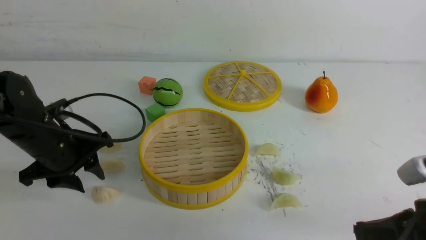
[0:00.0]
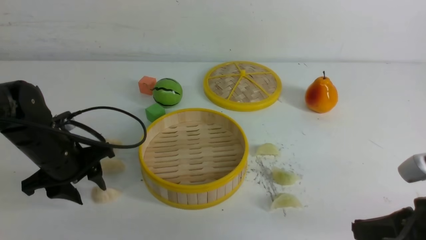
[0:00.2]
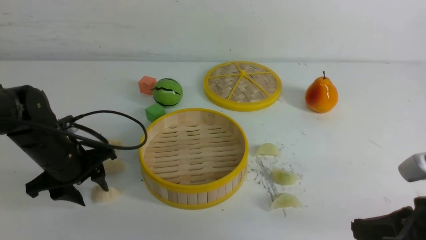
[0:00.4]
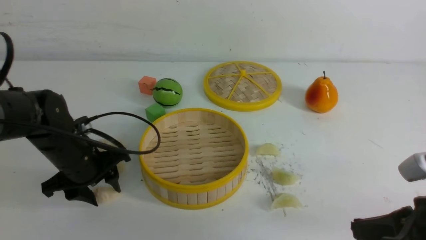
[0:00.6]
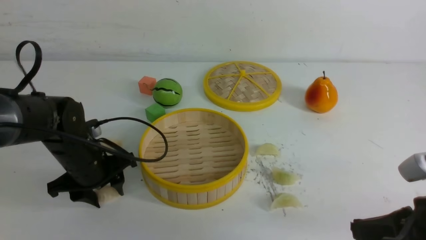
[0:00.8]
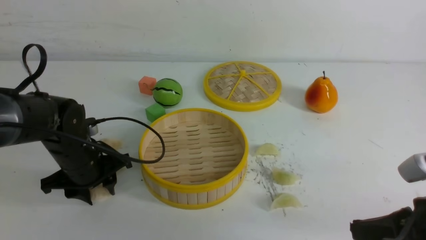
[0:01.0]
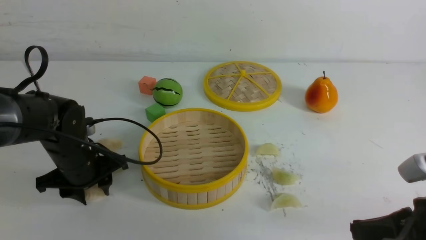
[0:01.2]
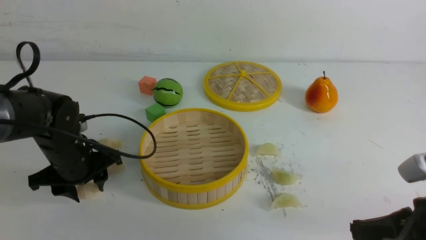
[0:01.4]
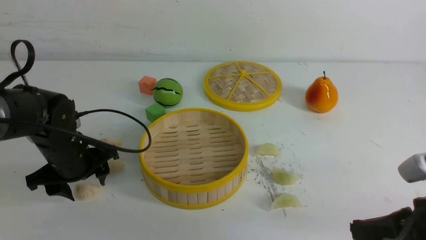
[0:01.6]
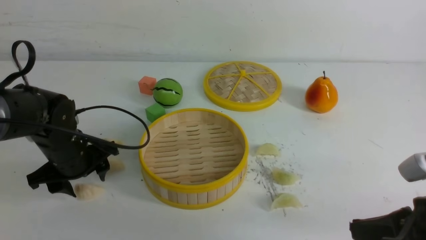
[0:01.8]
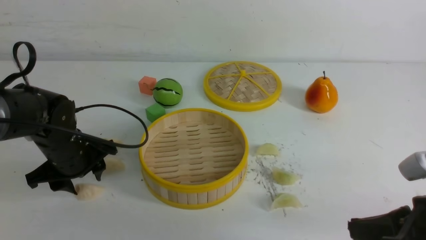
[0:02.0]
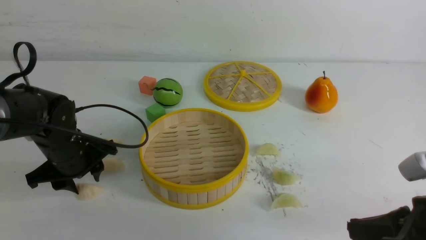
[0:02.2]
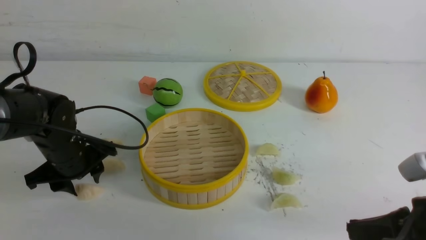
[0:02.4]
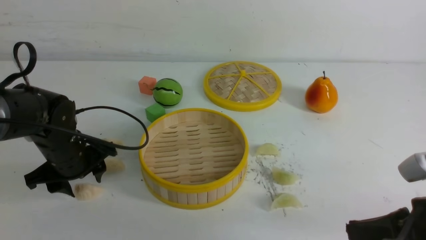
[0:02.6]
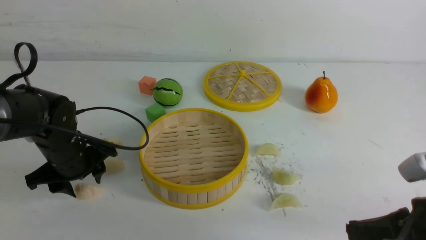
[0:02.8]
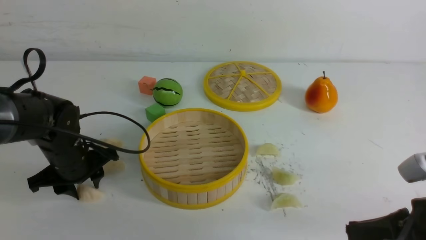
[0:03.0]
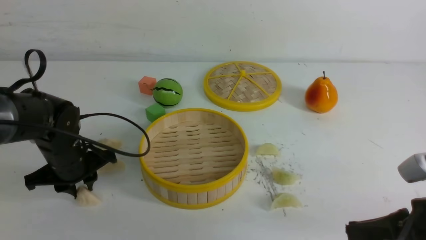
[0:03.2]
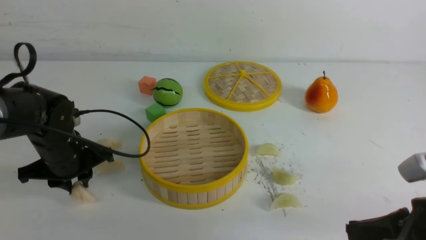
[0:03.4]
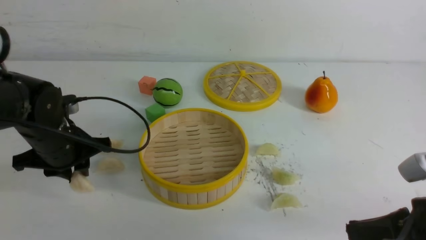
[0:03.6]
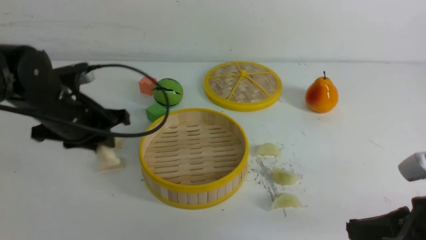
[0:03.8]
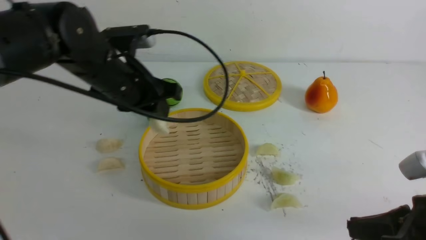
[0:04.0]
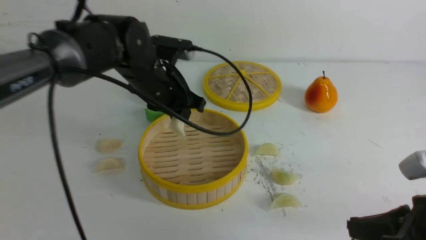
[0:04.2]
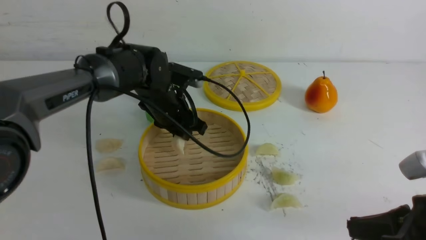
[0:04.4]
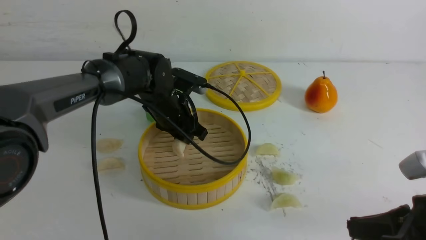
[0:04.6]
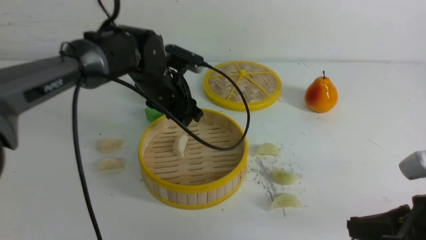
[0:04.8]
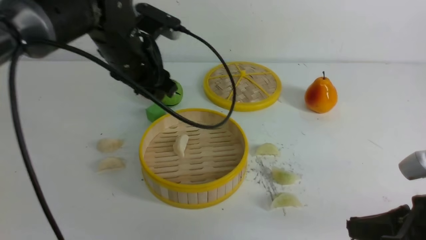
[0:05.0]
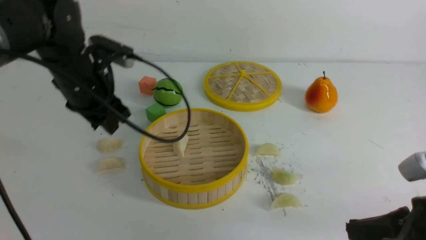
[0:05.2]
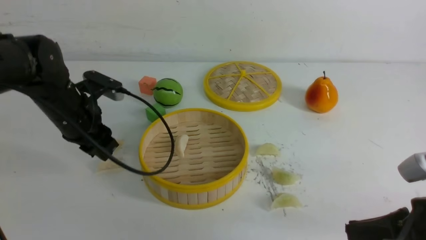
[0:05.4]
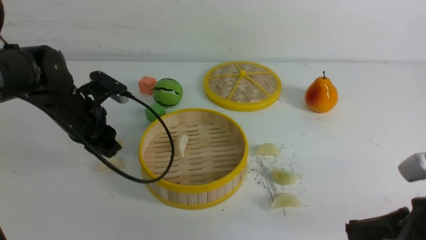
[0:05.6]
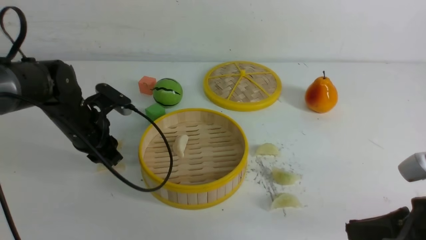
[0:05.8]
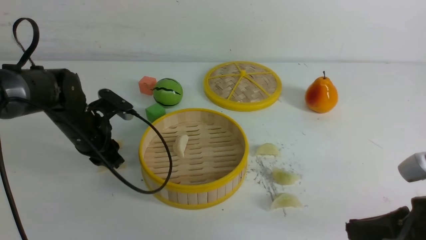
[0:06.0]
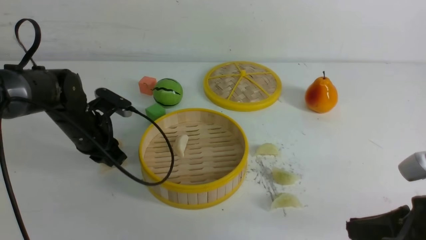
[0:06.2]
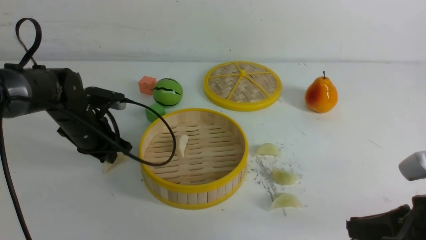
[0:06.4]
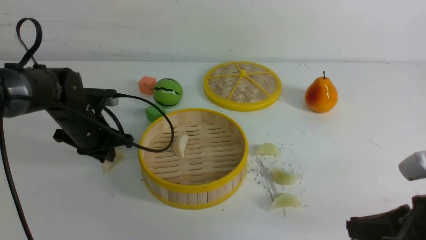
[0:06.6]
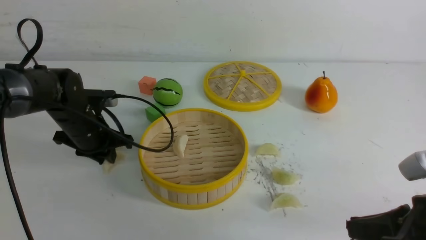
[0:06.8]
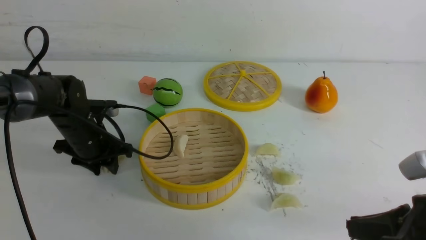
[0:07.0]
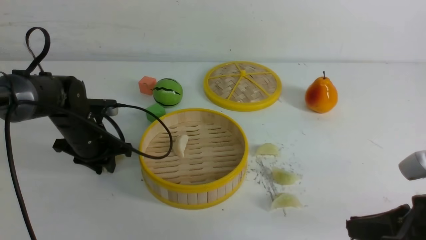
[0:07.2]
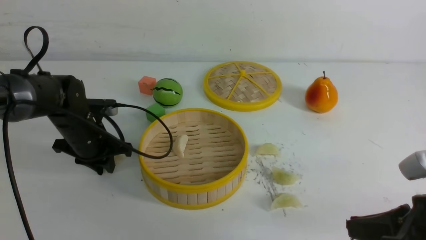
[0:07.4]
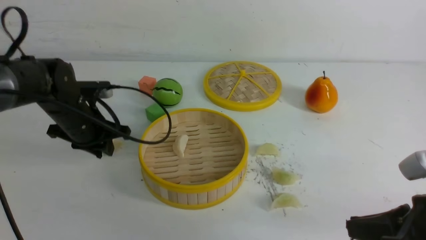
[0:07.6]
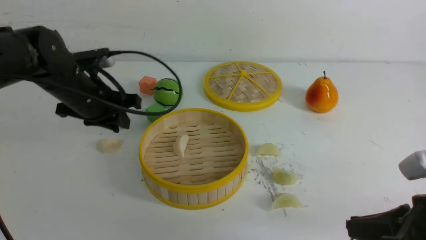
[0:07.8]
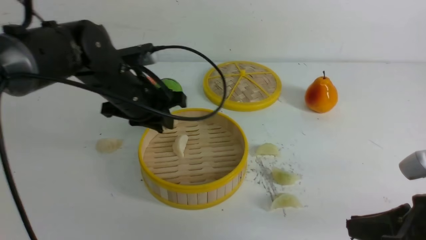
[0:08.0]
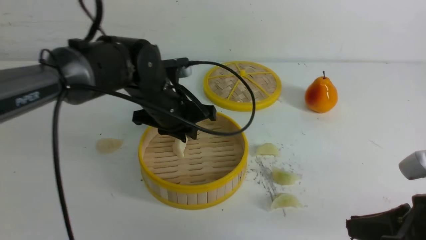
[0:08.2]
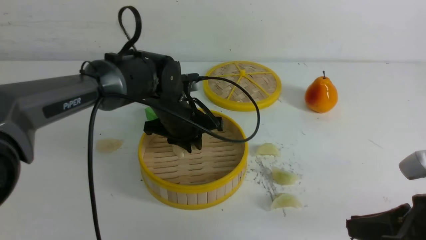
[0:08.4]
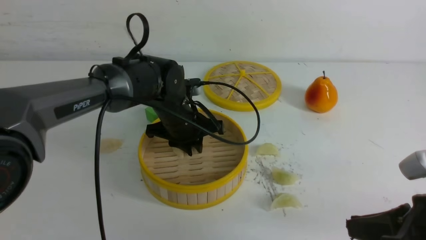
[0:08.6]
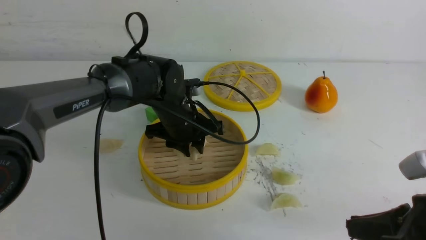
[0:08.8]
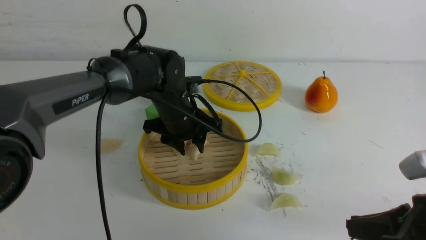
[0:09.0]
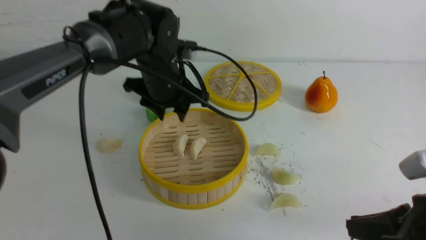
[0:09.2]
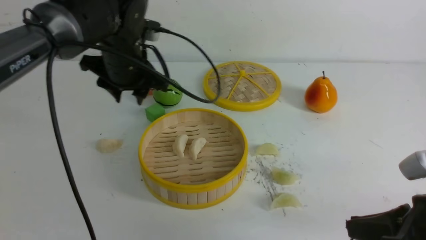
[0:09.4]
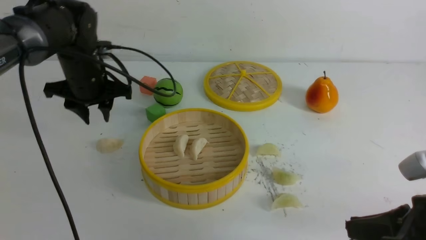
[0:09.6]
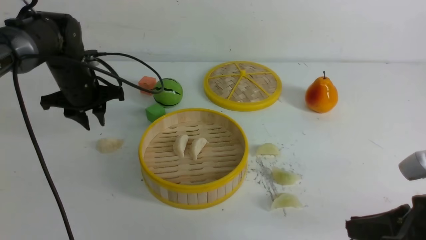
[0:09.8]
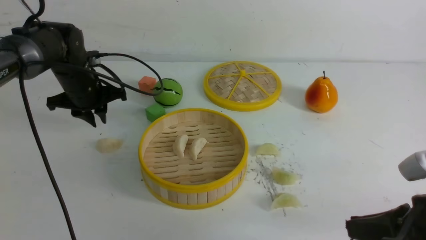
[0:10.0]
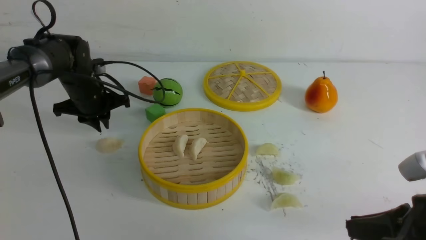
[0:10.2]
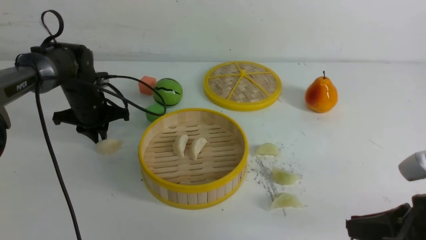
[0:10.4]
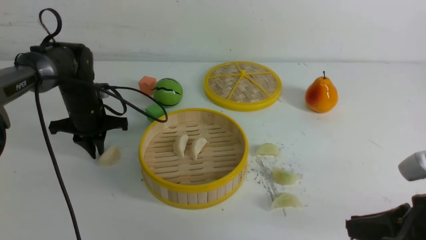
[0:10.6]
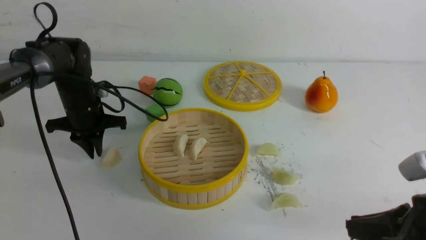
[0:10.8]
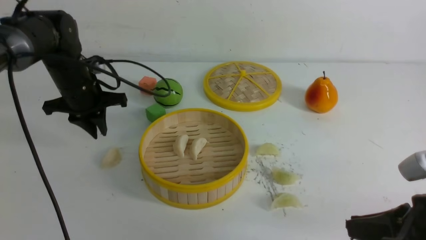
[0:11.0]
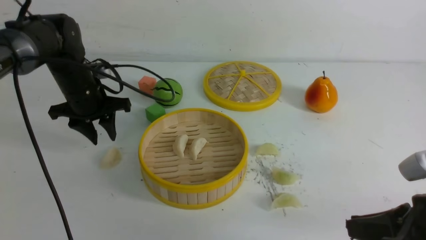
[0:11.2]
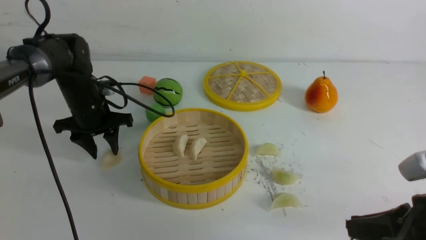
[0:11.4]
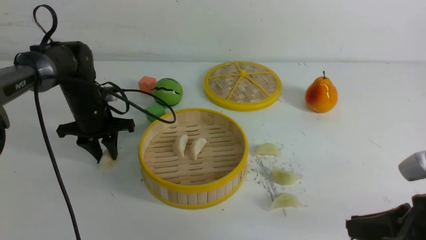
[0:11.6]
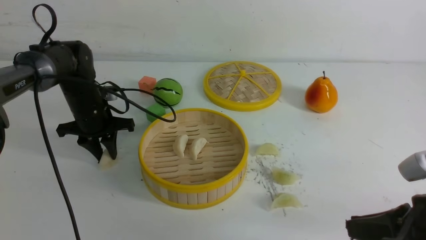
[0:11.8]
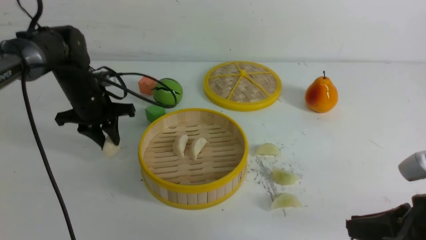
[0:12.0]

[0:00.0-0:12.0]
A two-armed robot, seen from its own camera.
Task of the whole recording: put the dumplings into the steamer on the white table.
Step, 0:00.0 to 0:03.4: use the left arm to grab a dumpling.
Step, 0:03.6 to 0:04.6: use the left arm to put the dumpling into the steamer.
Step, 0:04.8 to 0:07.4: use the left arm to grab a dumpling.
Step, 0:07.6 to 0:09.0: use the left arm to put the dumpling into the steamer.
Step, 0:09.2 to 0:11.8: use the left arm to grab a dumpling.
0:00.0 to 0:01.6: There are only small adjustments of the grippers.
0:01.6 to 0:03.0: Both grippers stay put.
0:03.0 to 0:04.4: The left gripper goes roughly 15 cm to the right and forward.
0:04.4 to 0:06.0: The left gripper is displaced to the left by roughly 15 cm.
0:07.6 to 0:09.0: The left gripper travels to the right by approximately 15 cm, and opens.
0:09.0 to 0:10.4: The left gripper heads to the left, covering approximately 15 cm, and closes up.
0:10.4 to 0:12.0: The left gripper swings up and down, approximately 5 cm each way, with 2 reversals.

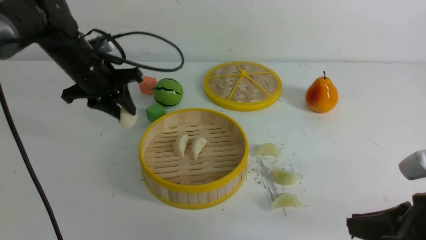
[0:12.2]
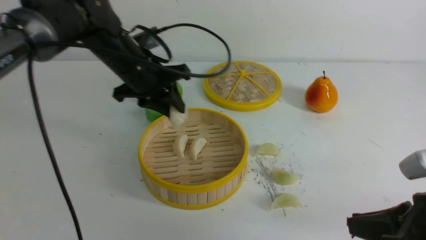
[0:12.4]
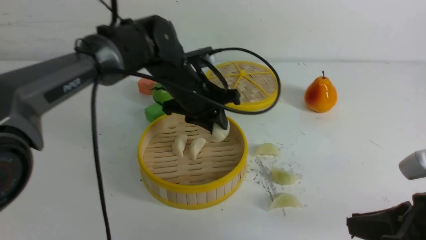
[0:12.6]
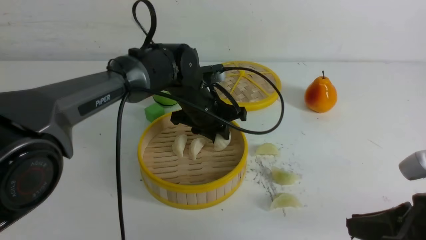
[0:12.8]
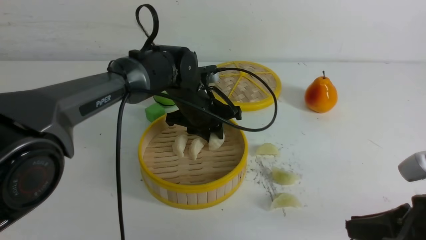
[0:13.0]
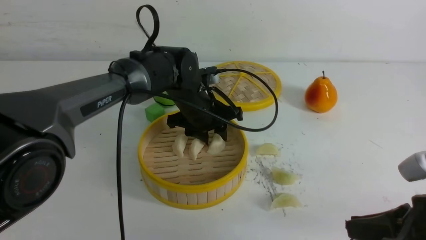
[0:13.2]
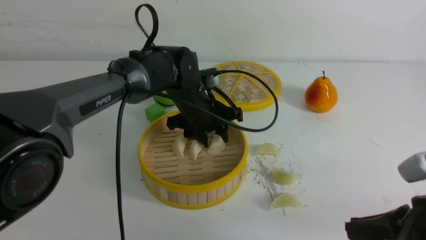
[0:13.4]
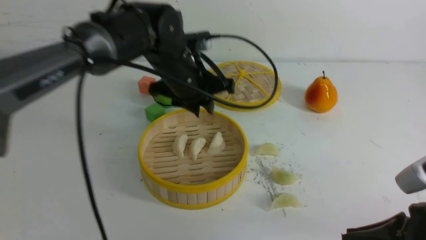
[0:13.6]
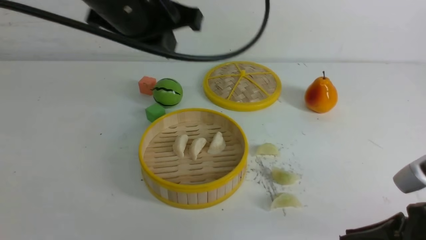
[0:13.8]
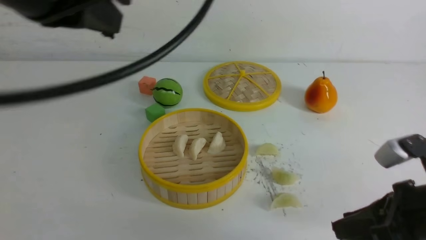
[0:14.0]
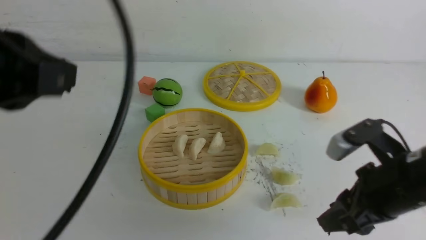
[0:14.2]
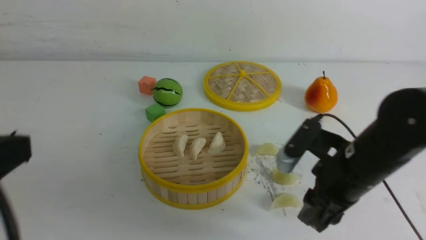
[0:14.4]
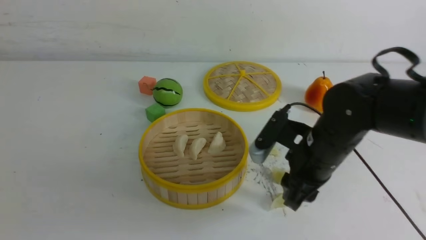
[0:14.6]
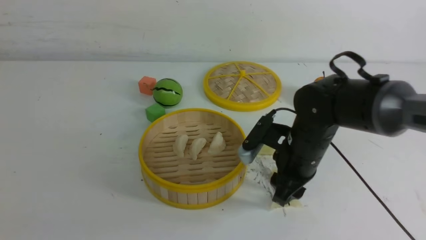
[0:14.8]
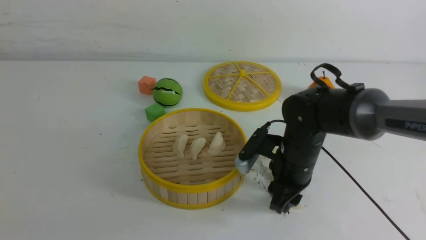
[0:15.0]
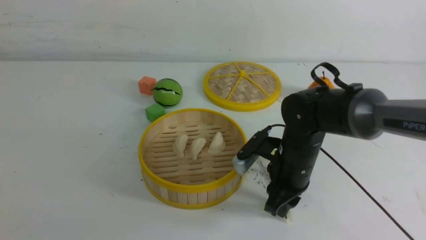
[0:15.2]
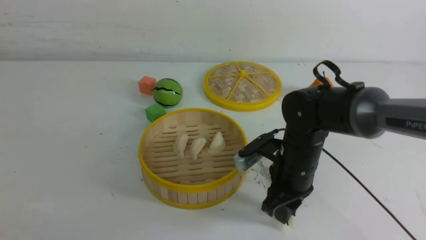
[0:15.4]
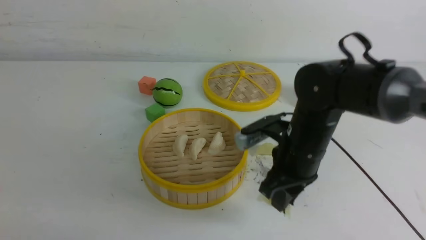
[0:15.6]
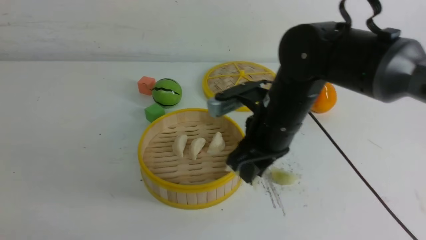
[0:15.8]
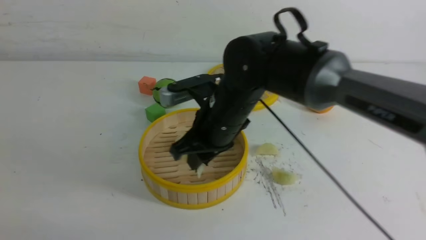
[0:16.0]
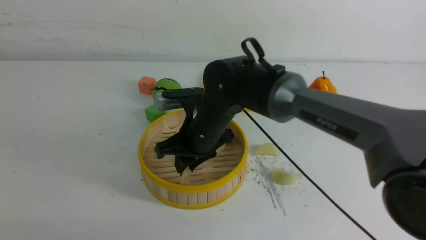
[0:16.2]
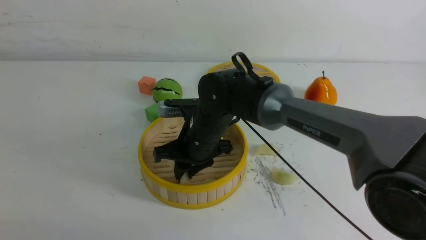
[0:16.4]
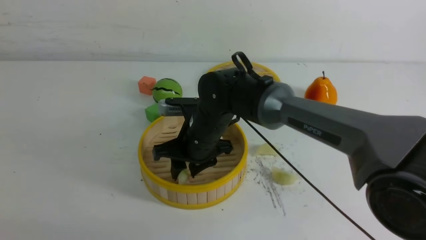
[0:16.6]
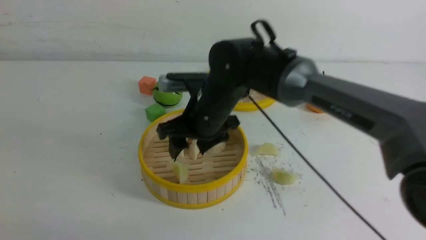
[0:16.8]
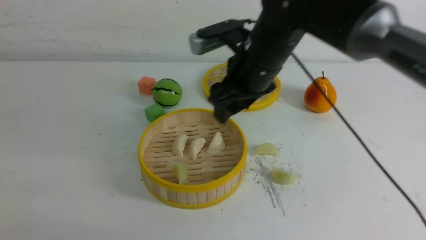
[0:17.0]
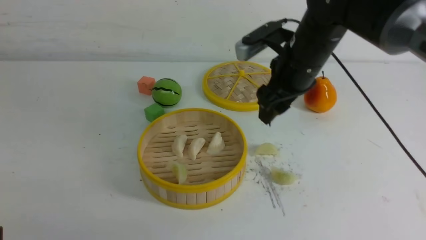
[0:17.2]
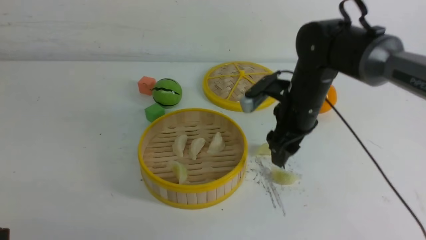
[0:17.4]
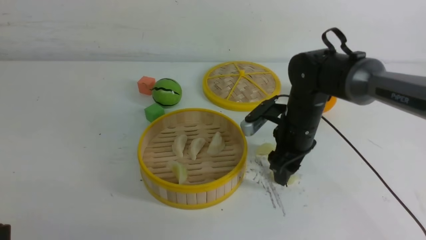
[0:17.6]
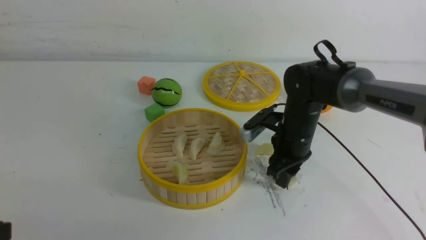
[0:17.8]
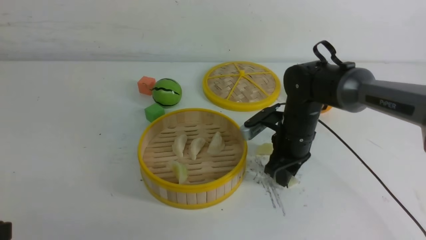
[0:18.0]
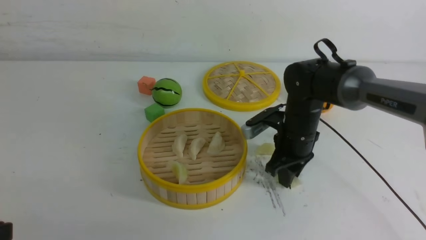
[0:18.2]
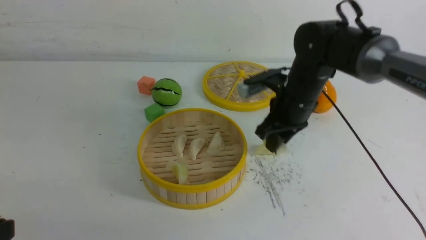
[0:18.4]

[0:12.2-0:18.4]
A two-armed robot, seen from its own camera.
Task of the whole recording: put the dumplings into the steamer on the white table.
Step, 0:12.2 to 0:13.2: use the left arm to put the dumpling into the steamer.
Step, 0:13.4 to 0:15.4: use the right arm to grab a dumpling.
Step, 0:15.6 to 0:16.6: use the right arm to put the dumpling into the steamer.
Step, 0:16.8 to 0:18.0: use the right arm to grab a dumpling.
0:12.2 to 0:13.8: The left gripper travels upward, backward and to the right by approximately 25 cm.
0:13.8 to 0:15.4: The left gripper goes some 30 cm backward, to the left and downward. Meanwhile the right gripper heads forward and to the left, covering roughly 20 cm.
0:15.4 to 0:16.8: The right gripper goes some 15 cm to the left, upward and forward, and opens up.
0:16.8 to 0:18.4: The right gripper travels to the right by approximately 10 cm, moves some 10 cm downward and comes back, and closes.
